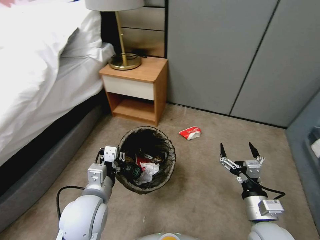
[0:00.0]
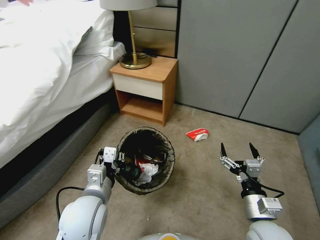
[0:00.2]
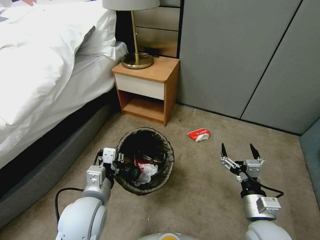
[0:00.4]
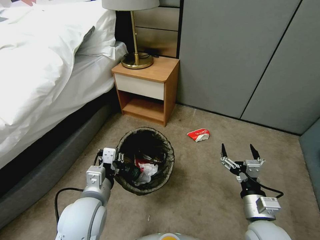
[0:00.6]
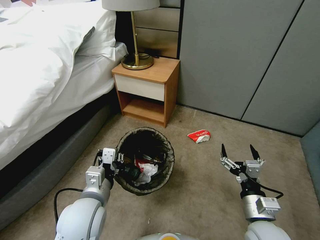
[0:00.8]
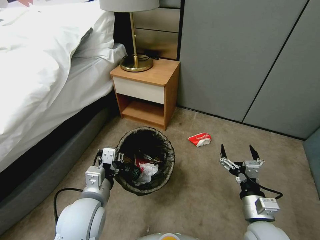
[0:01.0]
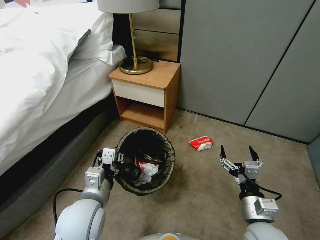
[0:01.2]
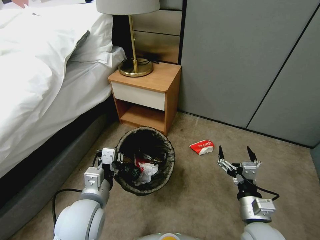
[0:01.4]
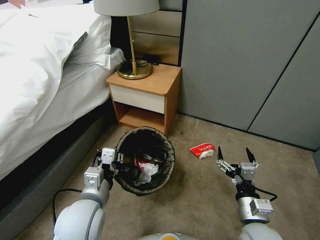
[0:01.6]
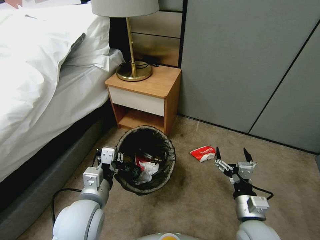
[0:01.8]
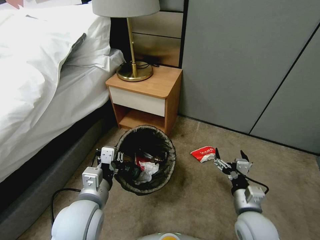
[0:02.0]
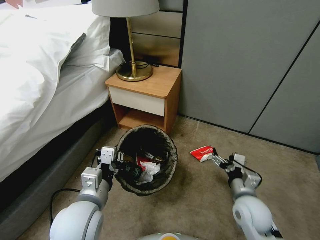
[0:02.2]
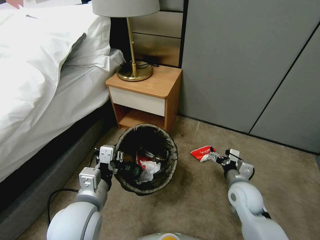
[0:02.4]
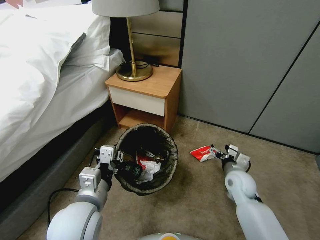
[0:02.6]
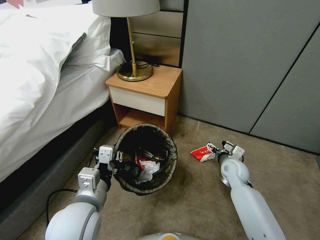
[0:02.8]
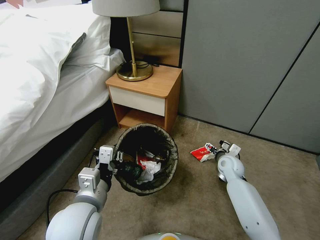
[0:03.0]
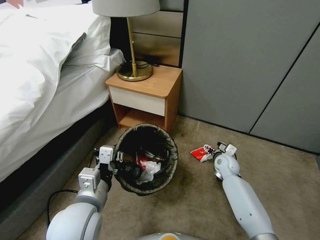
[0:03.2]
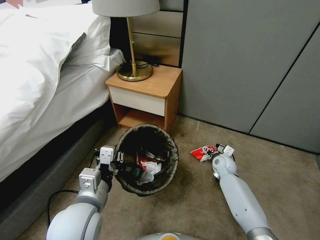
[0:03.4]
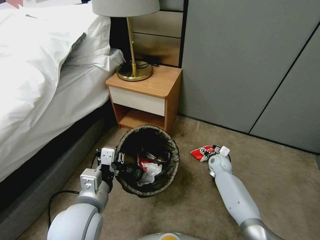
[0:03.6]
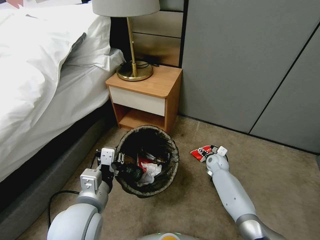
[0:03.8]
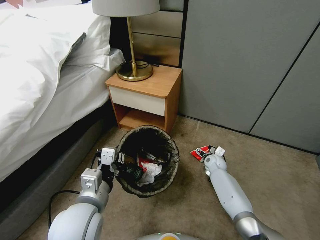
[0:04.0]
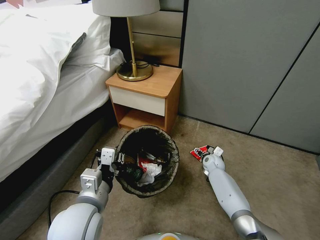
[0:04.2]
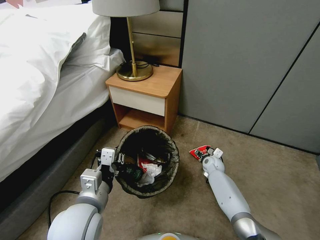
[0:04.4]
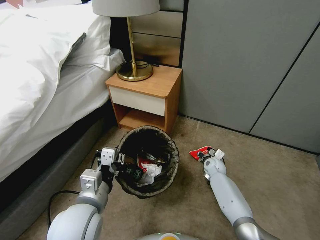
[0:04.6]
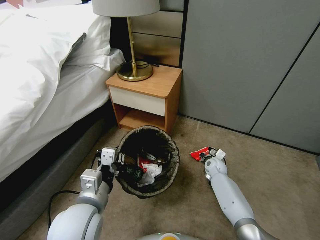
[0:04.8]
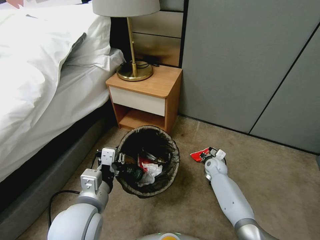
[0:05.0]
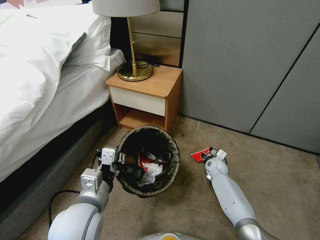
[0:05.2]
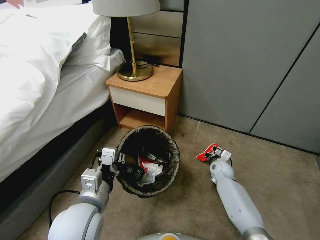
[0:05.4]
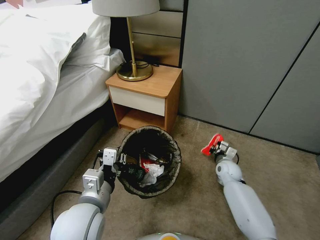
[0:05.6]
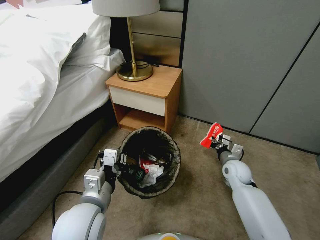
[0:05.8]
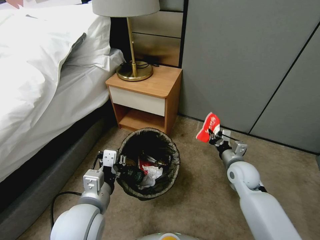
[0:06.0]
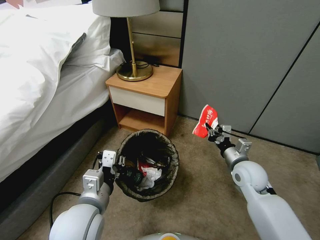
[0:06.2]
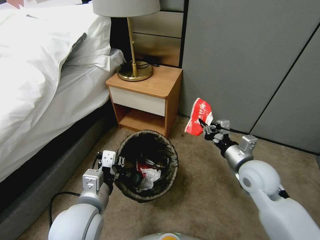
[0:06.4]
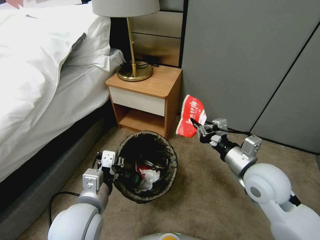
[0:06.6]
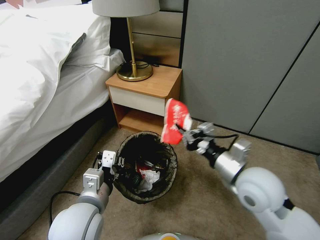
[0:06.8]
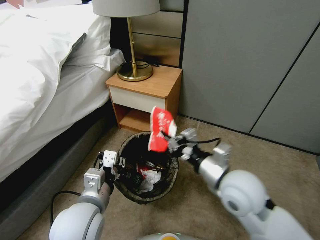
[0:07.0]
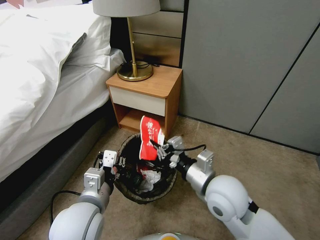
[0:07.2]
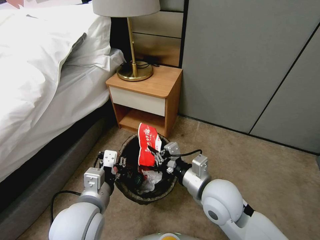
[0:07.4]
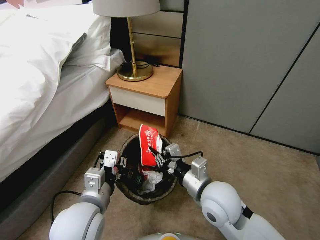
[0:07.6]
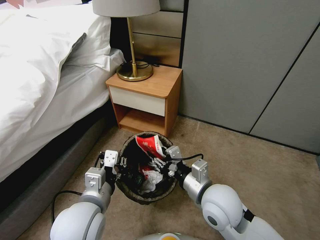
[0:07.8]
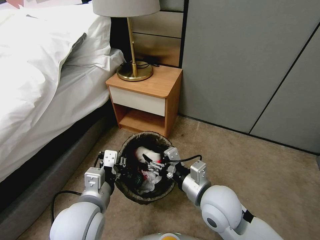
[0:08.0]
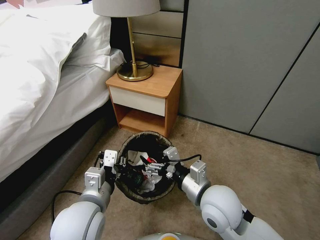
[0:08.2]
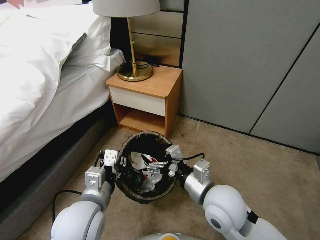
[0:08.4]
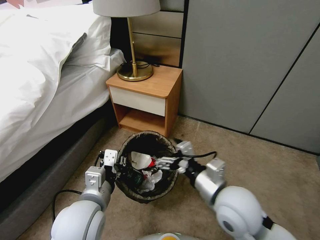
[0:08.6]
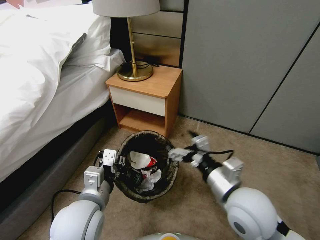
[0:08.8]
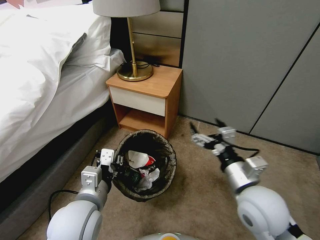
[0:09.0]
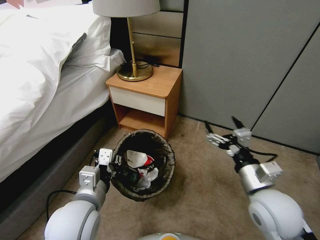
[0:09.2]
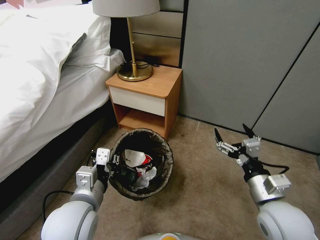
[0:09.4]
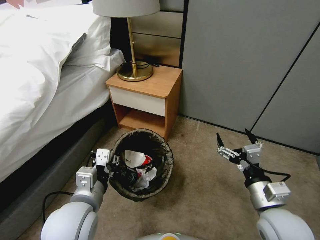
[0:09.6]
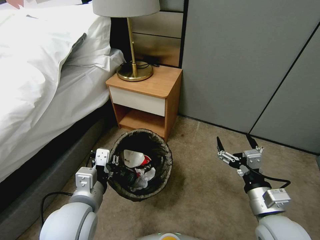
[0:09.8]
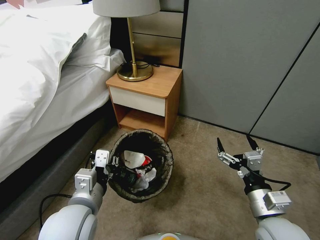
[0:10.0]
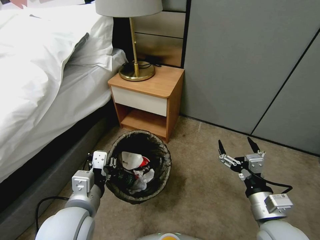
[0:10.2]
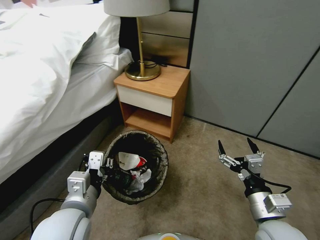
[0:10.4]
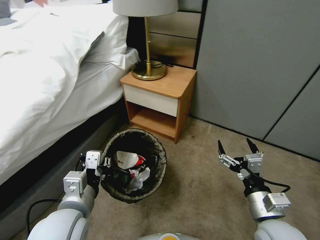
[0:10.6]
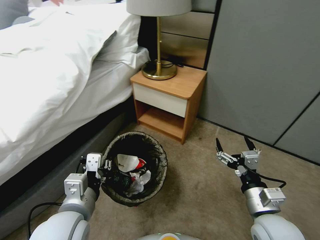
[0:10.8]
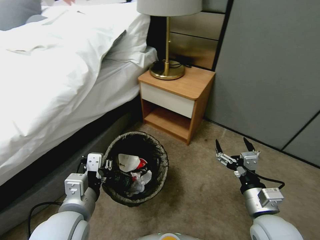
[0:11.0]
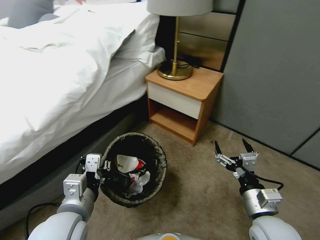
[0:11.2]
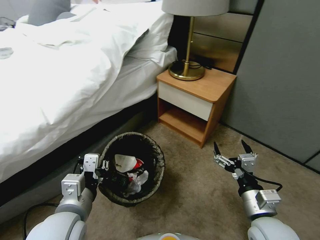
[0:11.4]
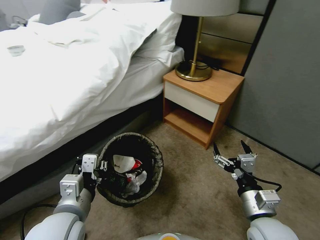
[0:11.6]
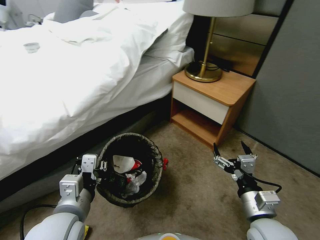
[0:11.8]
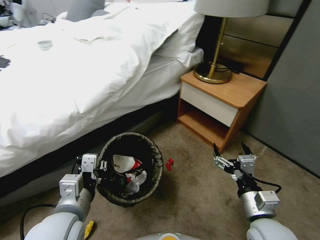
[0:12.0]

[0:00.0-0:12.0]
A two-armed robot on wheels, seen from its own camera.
Task of the whole recording: Pick up the trash bin, then pick up the garbage from the floor and place it into the trash bin.
0:01.6 to 0:03.0: The right gripper travels forward by approximately 25 cm.
0:03.0 to 0:04.4: The right gripper heads downward, covering some 10 cm.
0:04.4 to 0:06.0: The right gripper shifts some 20 cm upward and backward, and closes up.
0:06.0 to 0:07.6: The right gripper heads to the left, backward and upward, covering approximately 20 cm.
0:07.6 to 0:09.0: The right gripper shifts roughly 5 cm to the right, and opens.
0:09.0 to 0:10.4: The right gripper heads downward, to the right and backward, covering about 10 cm.

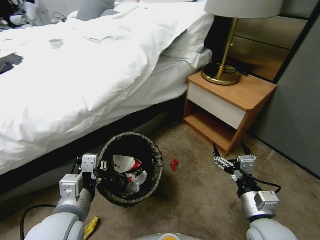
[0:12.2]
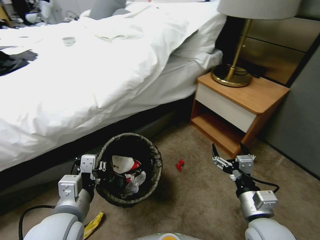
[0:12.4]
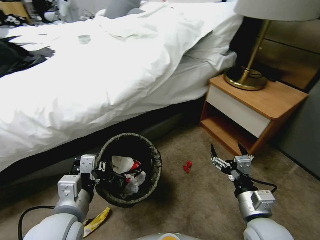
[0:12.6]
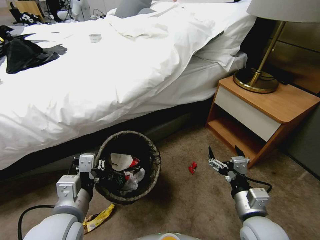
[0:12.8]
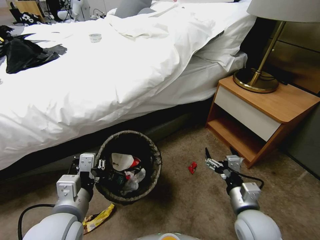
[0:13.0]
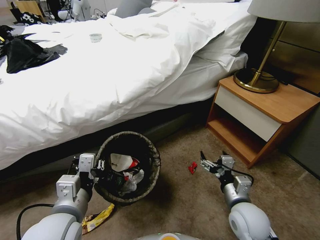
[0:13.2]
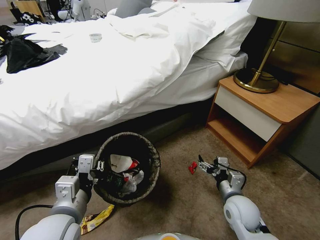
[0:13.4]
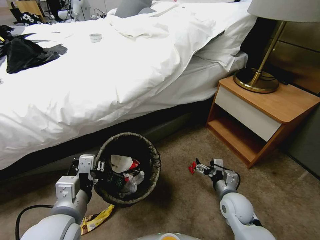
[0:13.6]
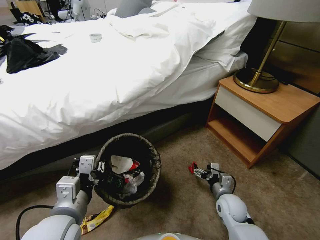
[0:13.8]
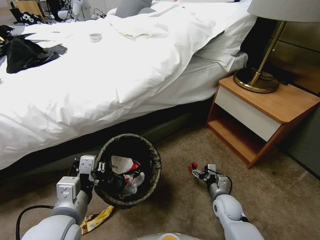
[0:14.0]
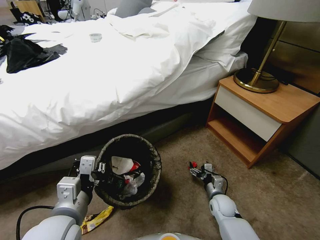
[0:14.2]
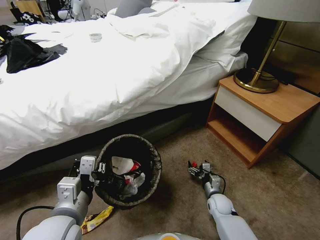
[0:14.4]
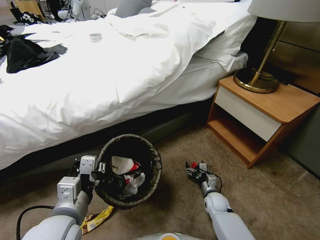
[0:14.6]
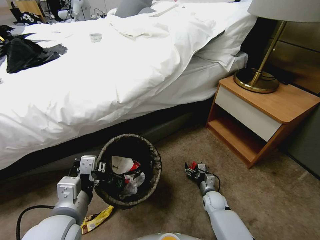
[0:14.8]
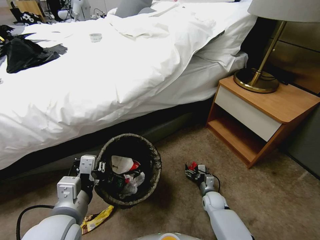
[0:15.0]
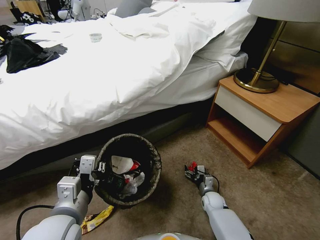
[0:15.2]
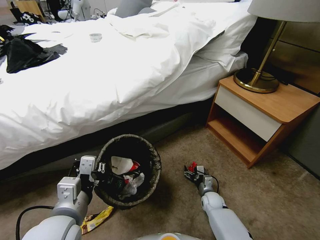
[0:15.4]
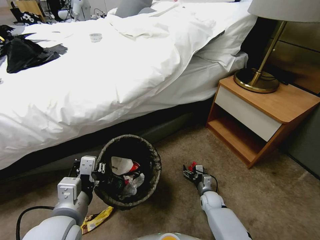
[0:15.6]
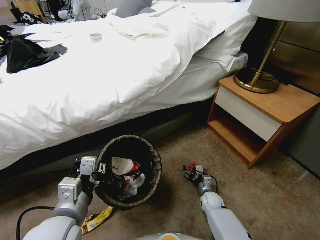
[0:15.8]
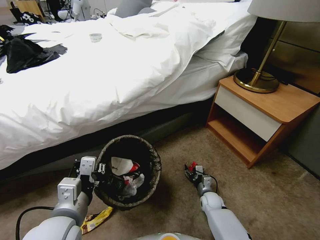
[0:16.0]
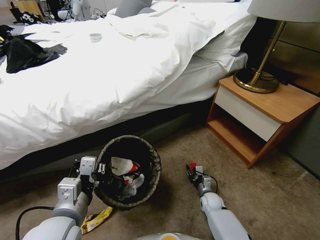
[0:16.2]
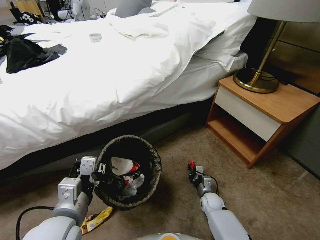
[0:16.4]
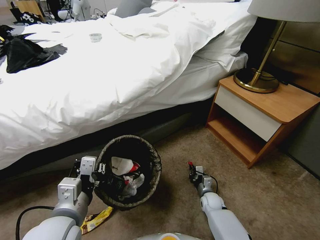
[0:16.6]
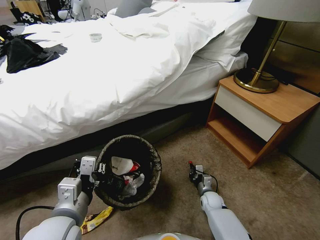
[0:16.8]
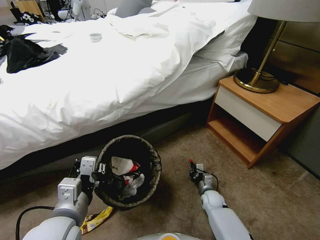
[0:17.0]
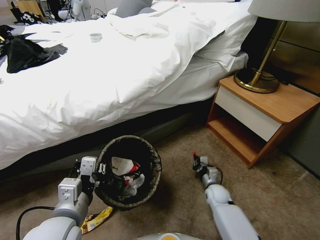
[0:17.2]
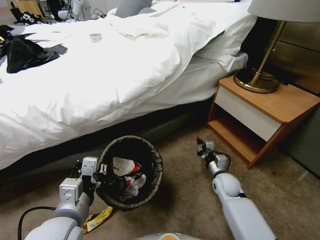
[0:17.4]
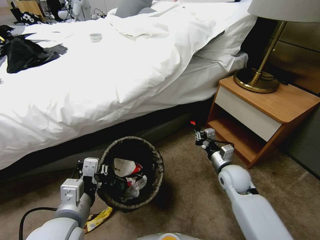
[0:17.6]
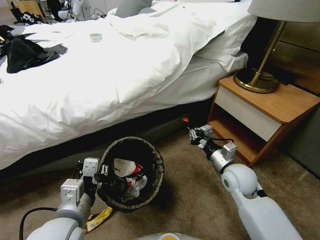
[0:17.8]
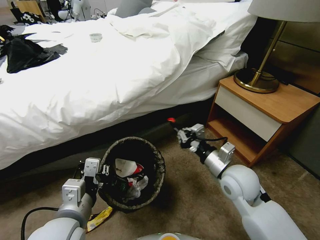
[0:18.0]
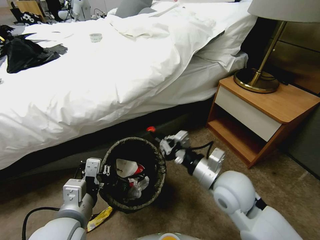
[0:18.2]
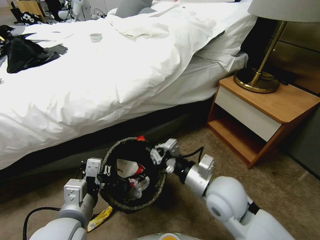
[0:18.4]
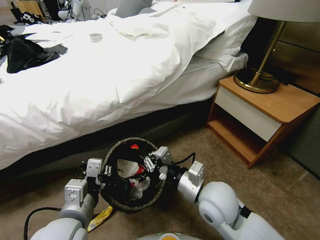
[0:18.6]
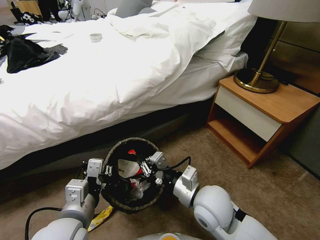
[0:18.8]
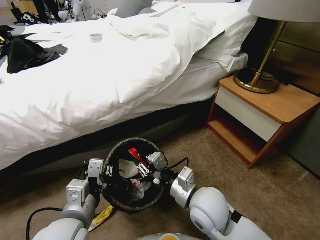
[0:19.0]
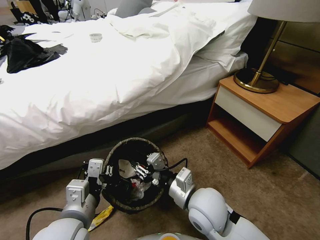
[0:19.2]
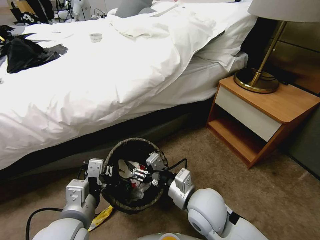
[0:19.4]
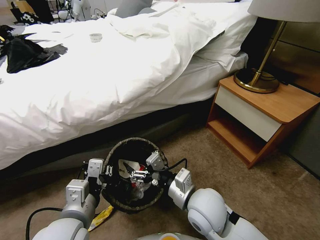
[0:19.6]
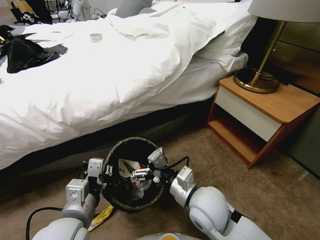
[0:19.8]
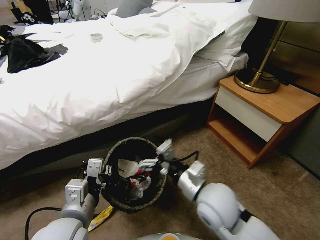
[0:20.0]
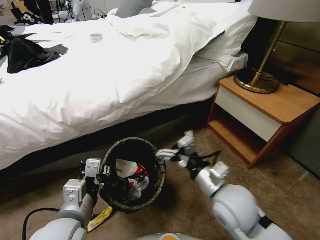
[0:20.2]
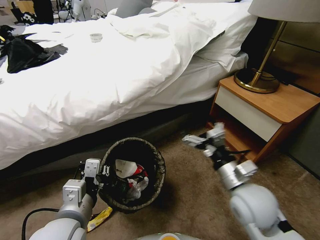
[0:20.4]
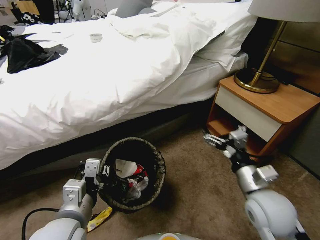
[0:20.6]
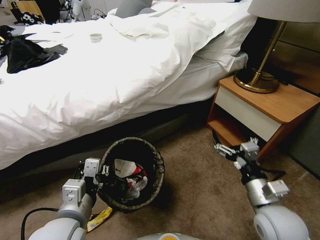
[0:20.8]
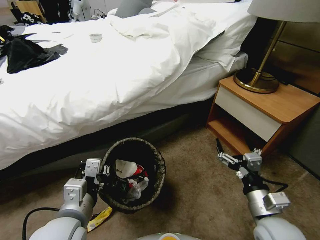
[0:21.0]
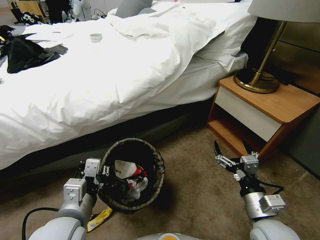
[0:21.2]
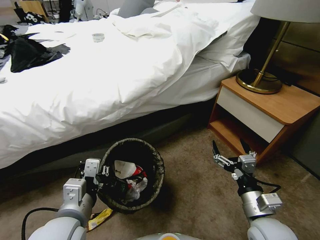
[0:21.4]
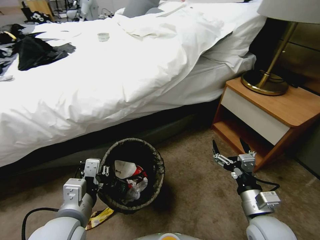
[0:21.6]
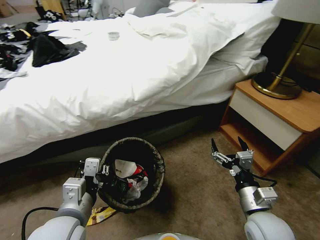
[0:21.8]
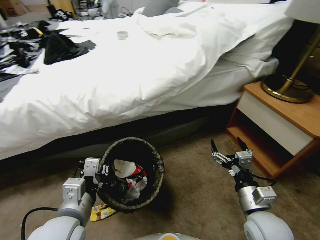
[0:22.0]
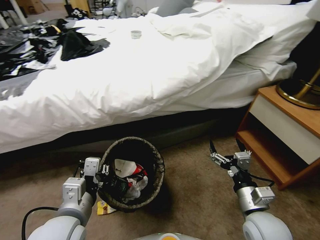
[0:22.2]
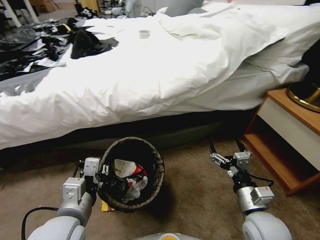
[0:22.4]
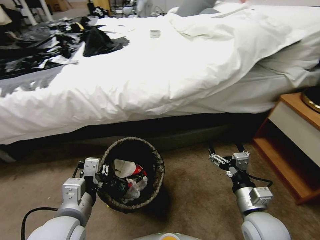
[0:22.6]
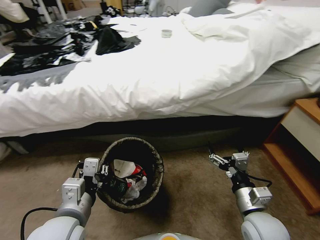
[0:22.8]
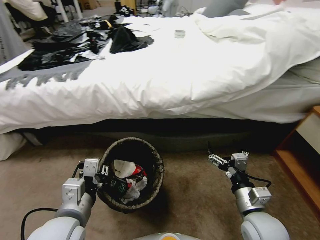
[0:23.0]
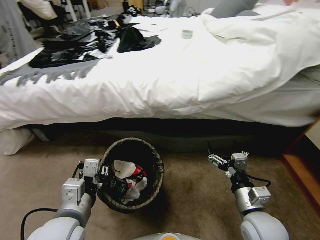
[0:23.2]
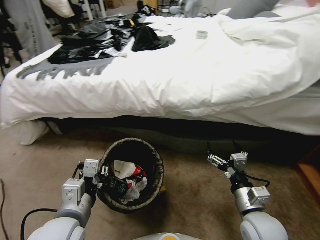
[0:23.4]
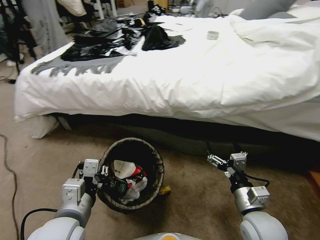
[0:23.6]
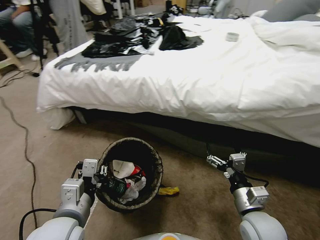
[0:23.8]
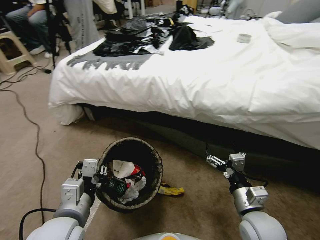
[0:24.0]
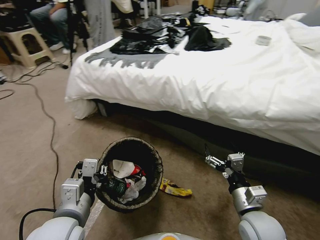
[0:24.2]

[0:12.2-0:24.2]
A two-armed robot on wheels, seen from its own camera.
Task of the whole recording: Pick up the trash bin, then pick up the garbage from the floor and place it into the trash bin.
0:12.2 to 0:13.8: The right gripper travels downward and forward by about 20 cm.
0:13.8 to 0:15.2: The right gripper shifts roughly 15 cm downward.
0:15.2 to 0:16.6: The right gripper closes.
0:16.6 to 0:18.2: The right gripper goes approximately 35 cm upward.
0:18.2 to 0:19.8: The right gripper shifts some 5 cm to the left, and opens its fingers.
0:19.8 to 0:21.2: The right gripper goes about 15 cm to the right.
